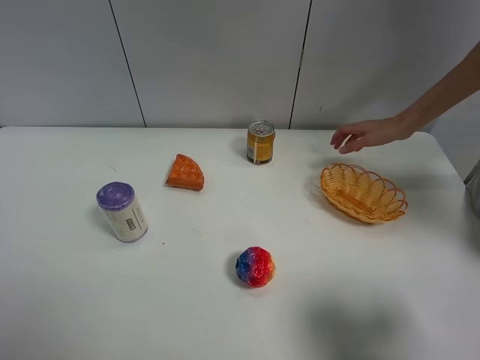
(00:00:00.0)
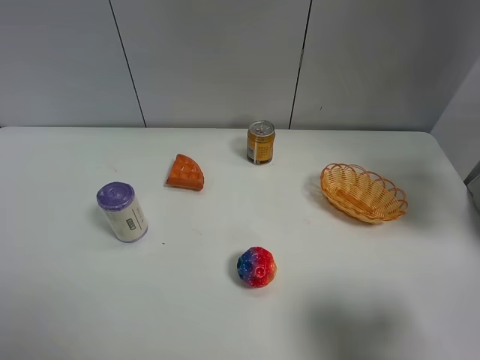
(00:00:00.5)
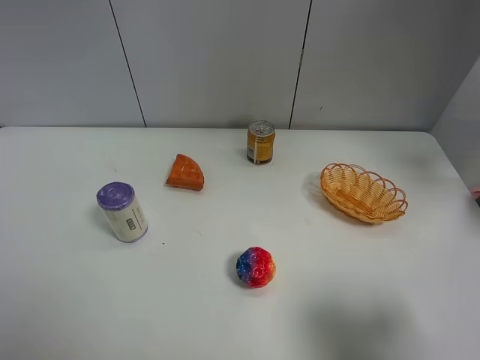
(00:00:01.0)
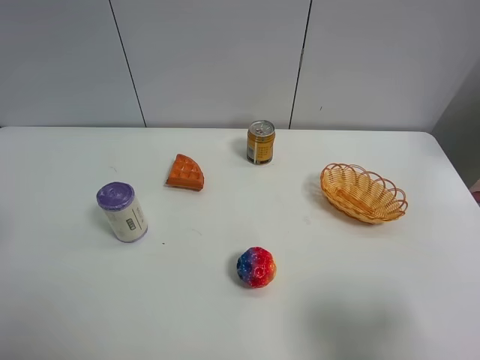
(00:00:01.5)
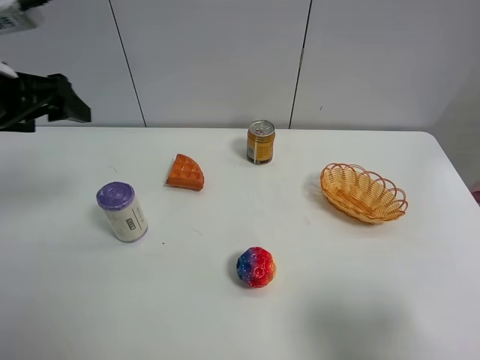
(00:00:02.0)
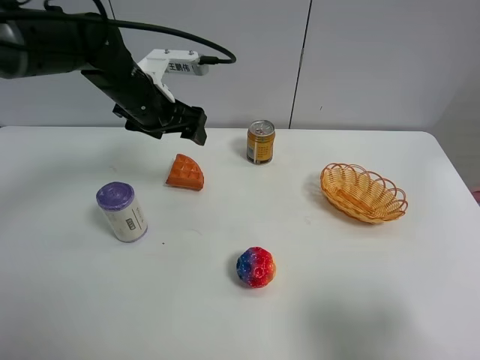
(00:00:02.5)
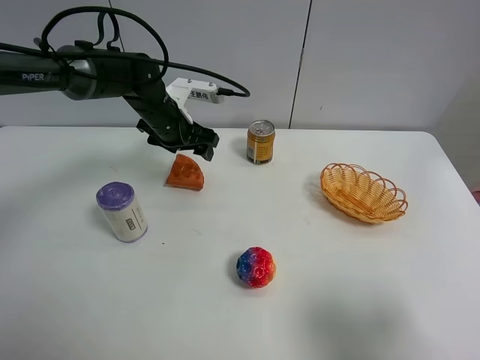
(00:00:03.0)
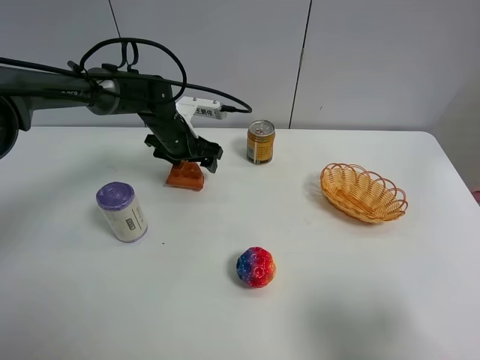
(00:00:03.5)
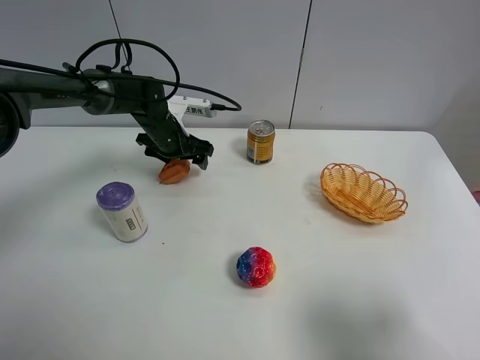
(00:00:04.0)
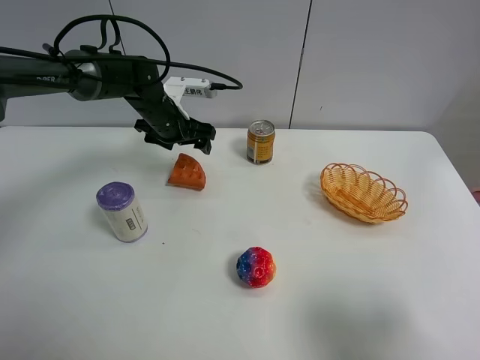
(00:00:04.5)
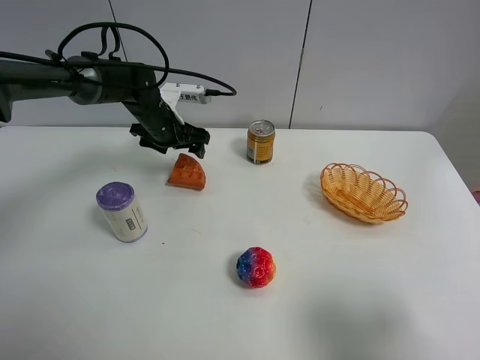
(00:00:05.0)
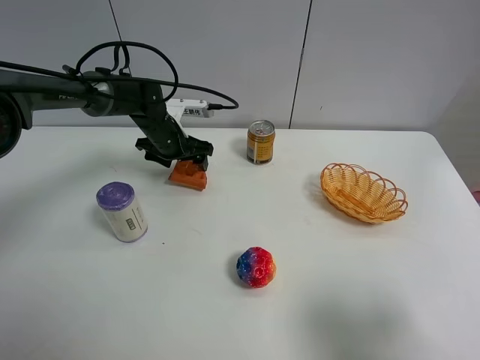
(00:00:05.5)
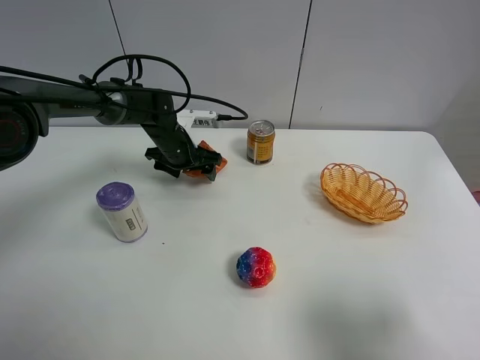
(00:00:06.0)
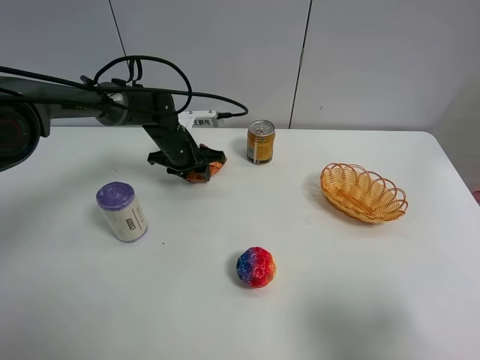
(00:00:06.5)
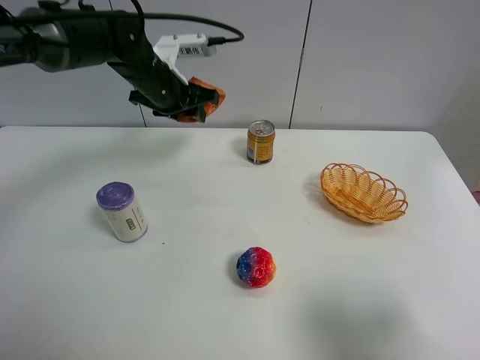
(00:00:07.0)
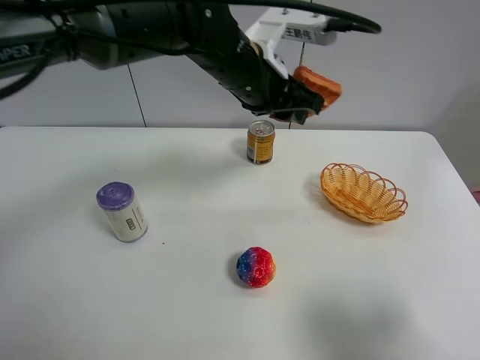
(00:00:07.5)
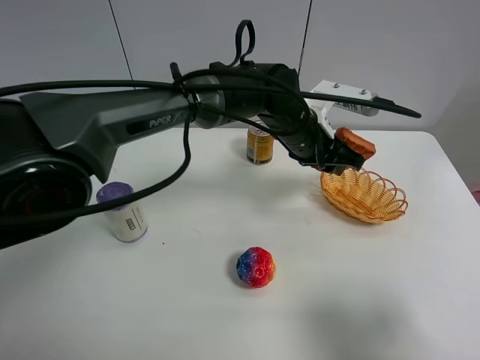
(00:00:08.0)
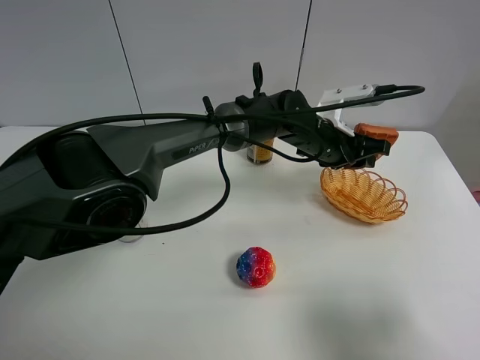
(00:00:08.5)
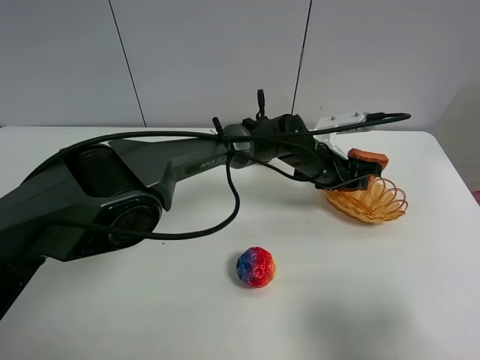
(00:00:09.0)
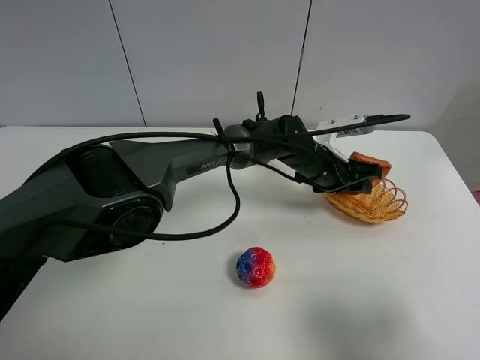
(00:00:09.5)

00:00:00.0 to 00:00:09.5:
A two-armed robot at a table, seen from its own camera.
Task of the whole recording: Put the bakery in the basket.
00:00:00.0 to 00:00:02.0: The left gripper goes roughly 30 cm forward.
00:00:02.0 to 00:00:04.0: The left gripper travels downward, forward and to the right by roughly 30 cm.
00:00:04.0 to 00:00:05.5: The grippers move only a little.
00:00:05.5 to 00:00:07.5: The left gripper is displaced upward, to the right and backward by roughly 25 cm, and closes its fingers.
00:00:07.5 to 00:00:09.5: The left gripper heads downward and to the right, covering about 20 cm, and opens.

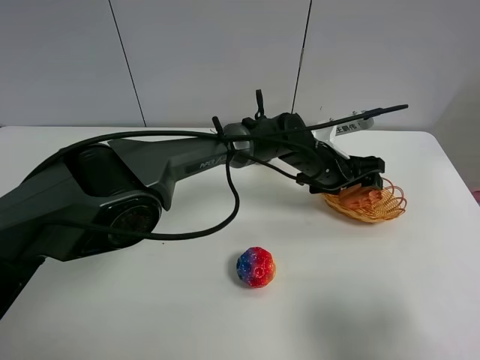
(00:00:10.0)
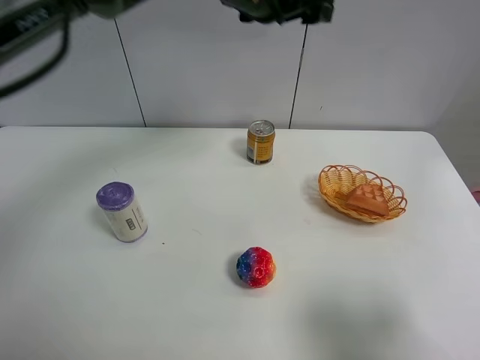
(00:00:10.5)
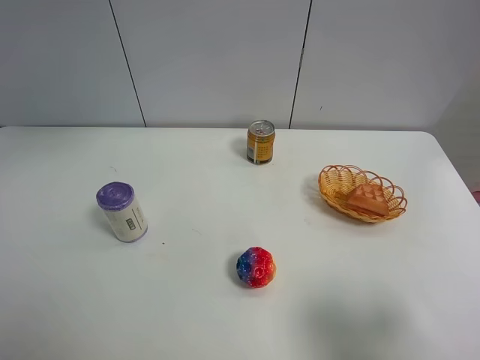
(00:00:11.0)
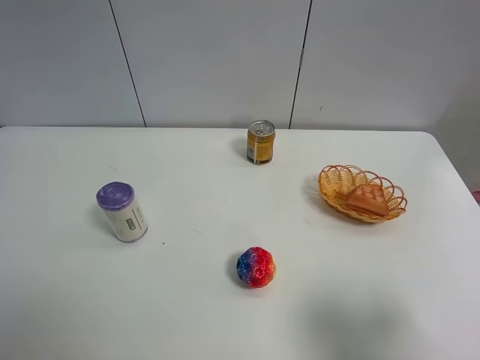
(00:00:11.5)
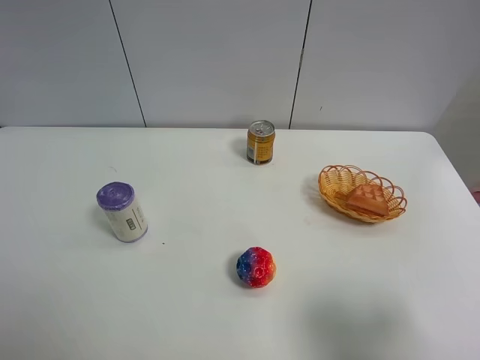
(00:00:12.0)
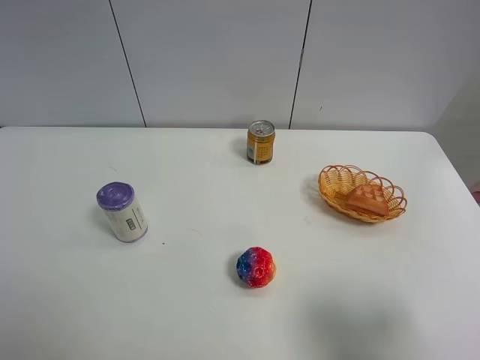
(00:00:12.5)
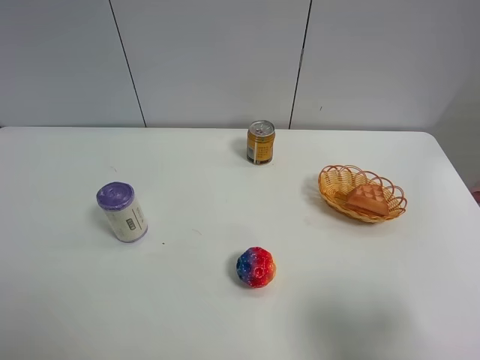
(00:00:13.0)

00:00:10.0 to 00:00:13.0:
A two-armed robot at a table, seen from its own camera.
Task of the whole recording: Put the bakery in the basket.
00:00:10.0 to 00:00:11.5: The left gripper is displaced to the left and upward by approximately 60 cm.
